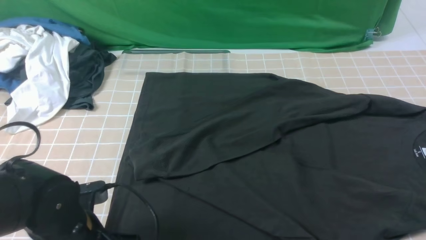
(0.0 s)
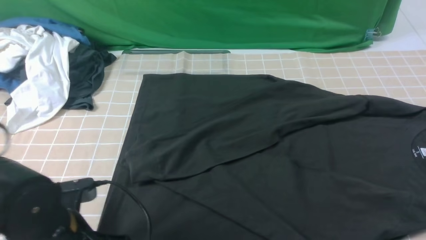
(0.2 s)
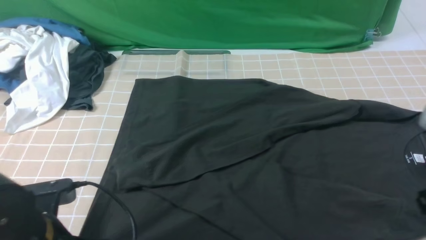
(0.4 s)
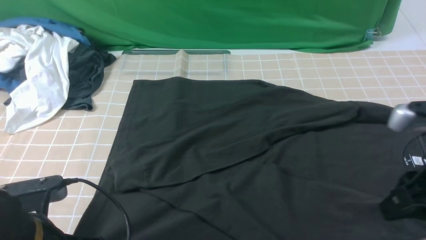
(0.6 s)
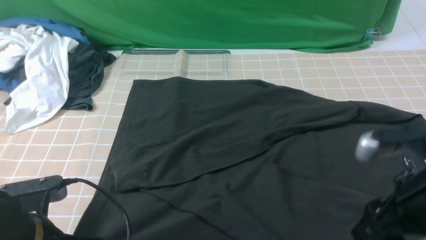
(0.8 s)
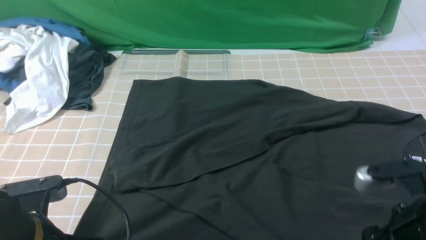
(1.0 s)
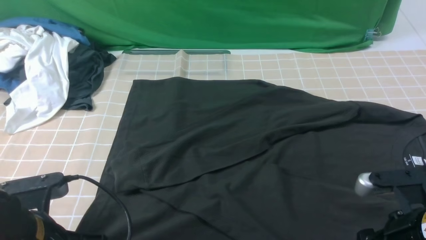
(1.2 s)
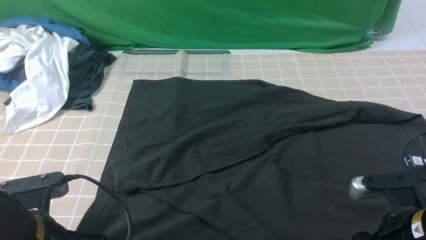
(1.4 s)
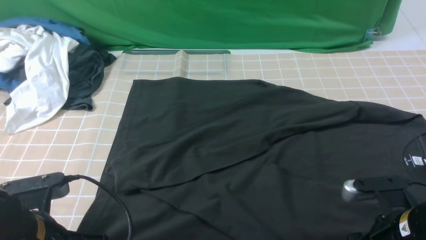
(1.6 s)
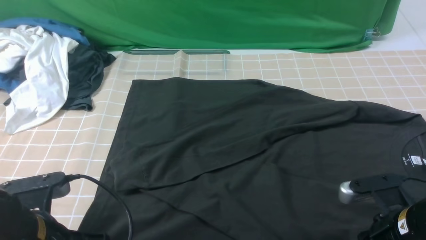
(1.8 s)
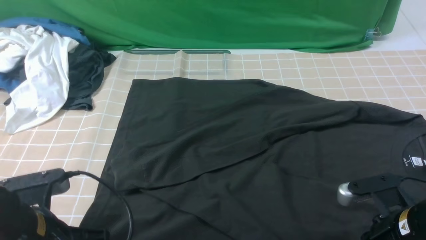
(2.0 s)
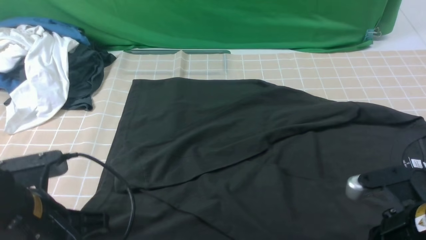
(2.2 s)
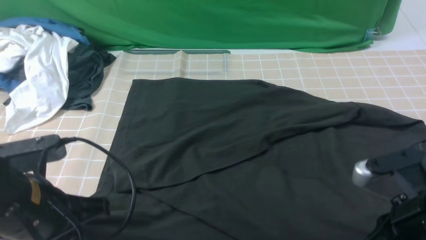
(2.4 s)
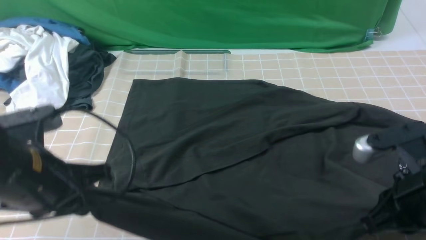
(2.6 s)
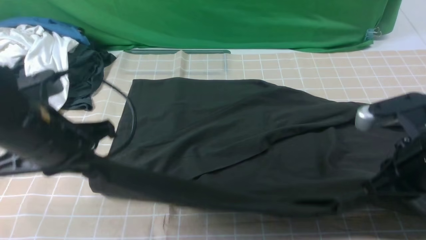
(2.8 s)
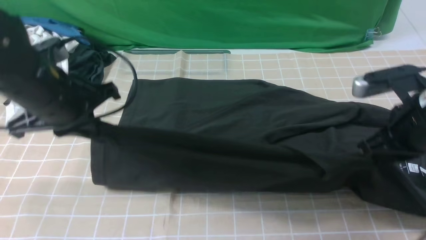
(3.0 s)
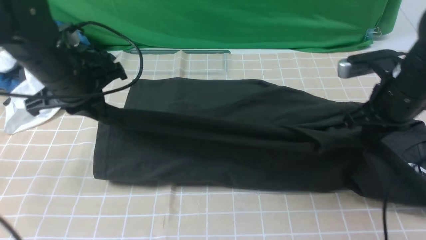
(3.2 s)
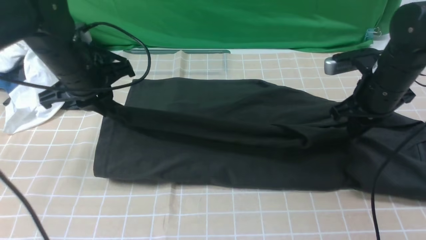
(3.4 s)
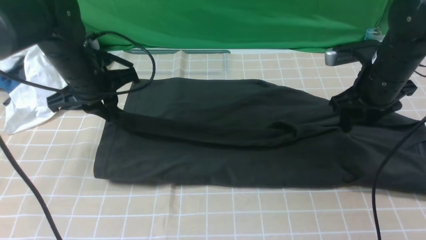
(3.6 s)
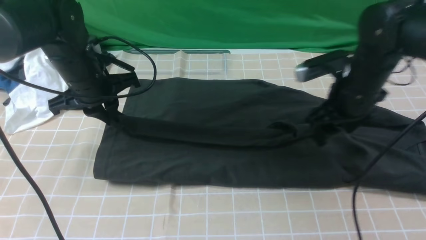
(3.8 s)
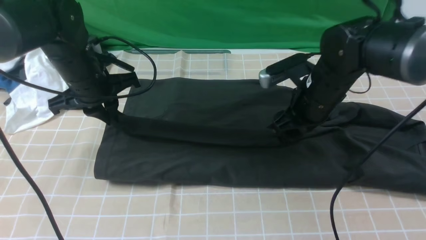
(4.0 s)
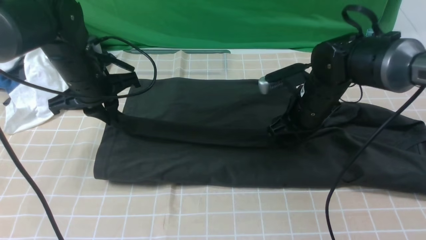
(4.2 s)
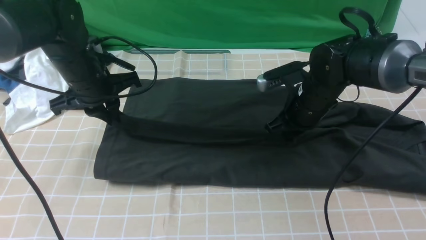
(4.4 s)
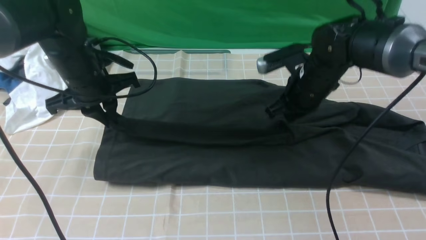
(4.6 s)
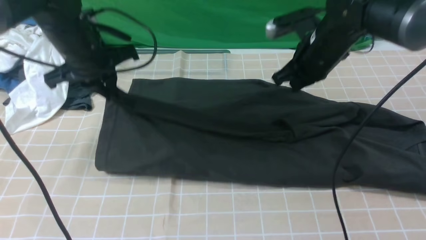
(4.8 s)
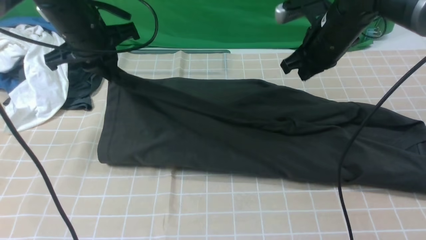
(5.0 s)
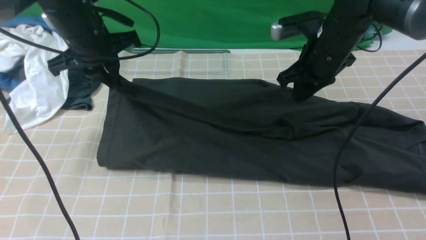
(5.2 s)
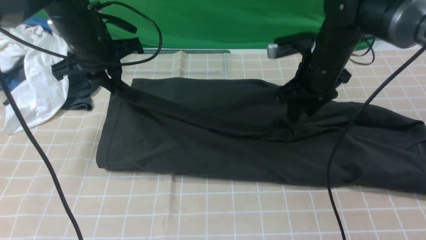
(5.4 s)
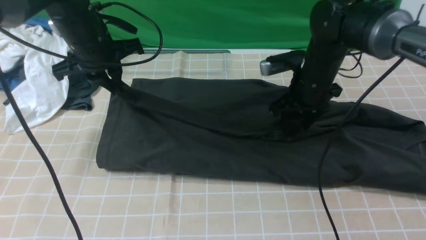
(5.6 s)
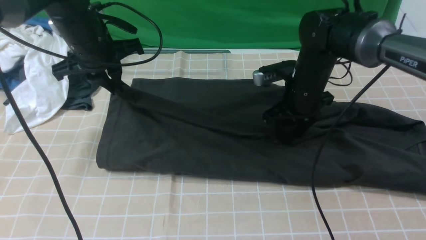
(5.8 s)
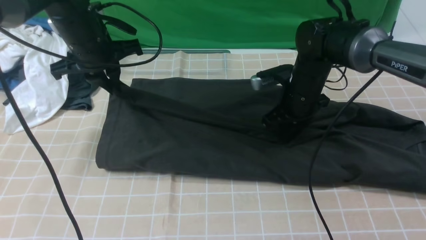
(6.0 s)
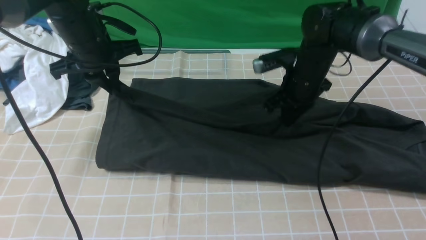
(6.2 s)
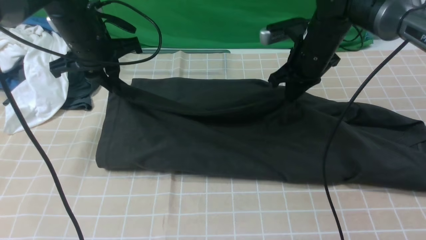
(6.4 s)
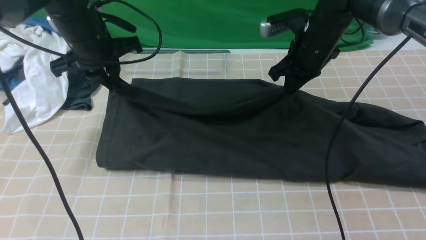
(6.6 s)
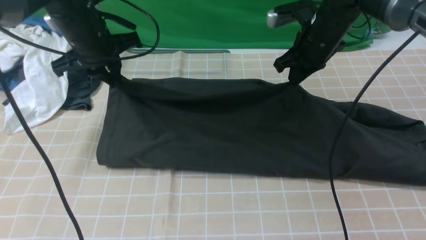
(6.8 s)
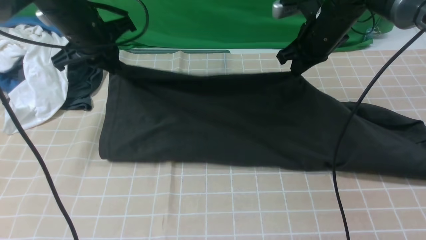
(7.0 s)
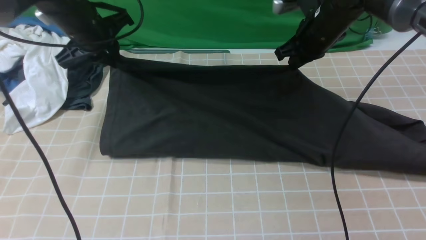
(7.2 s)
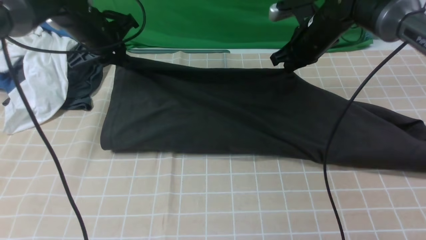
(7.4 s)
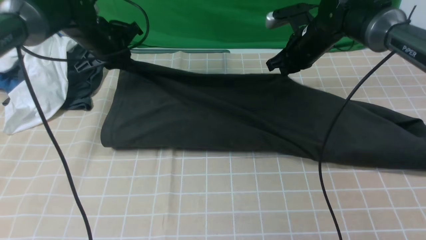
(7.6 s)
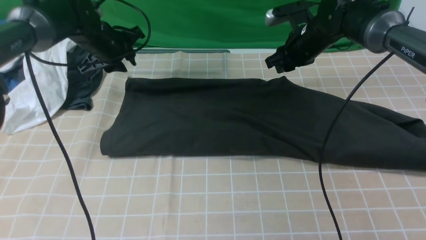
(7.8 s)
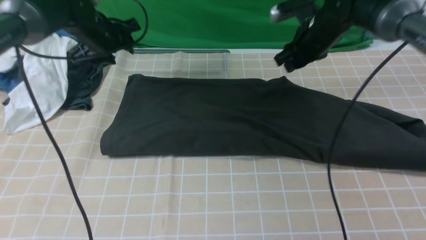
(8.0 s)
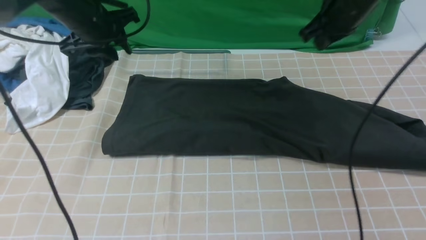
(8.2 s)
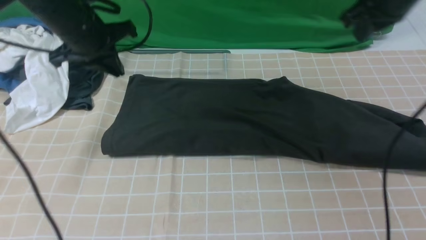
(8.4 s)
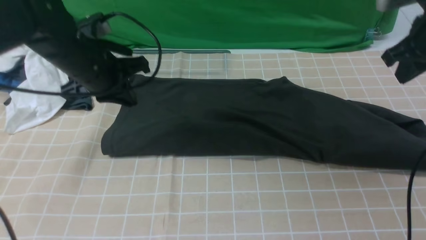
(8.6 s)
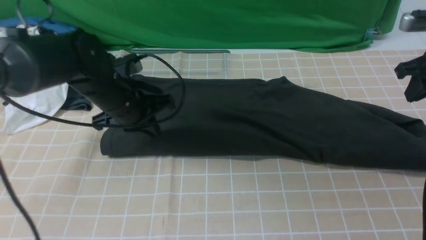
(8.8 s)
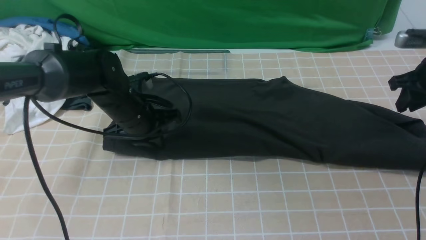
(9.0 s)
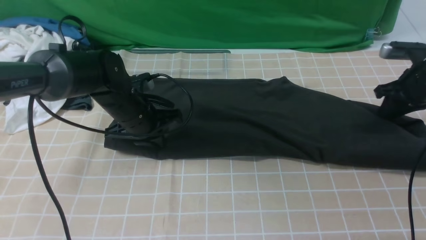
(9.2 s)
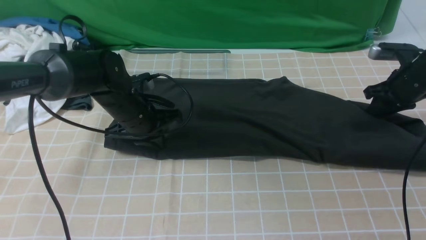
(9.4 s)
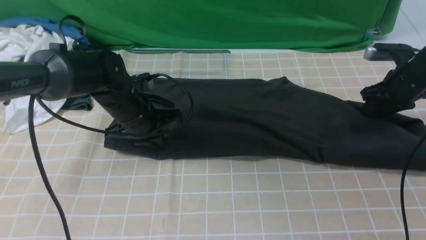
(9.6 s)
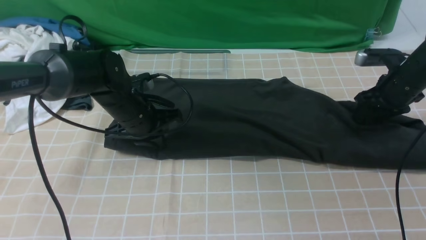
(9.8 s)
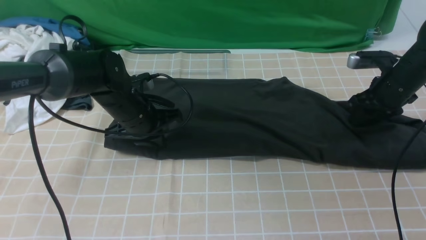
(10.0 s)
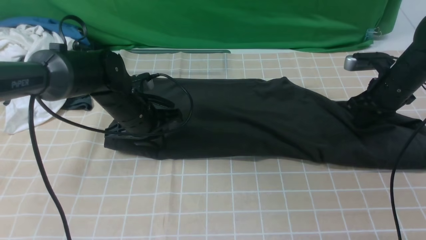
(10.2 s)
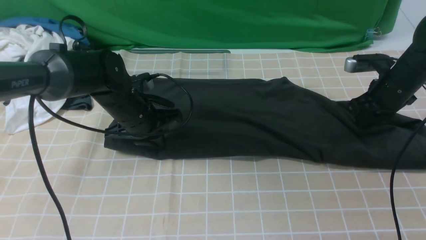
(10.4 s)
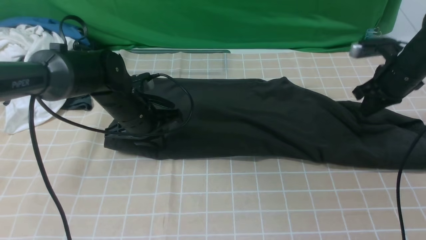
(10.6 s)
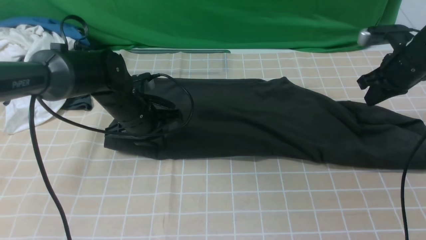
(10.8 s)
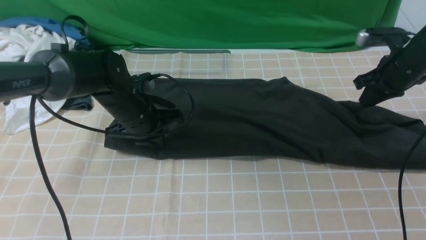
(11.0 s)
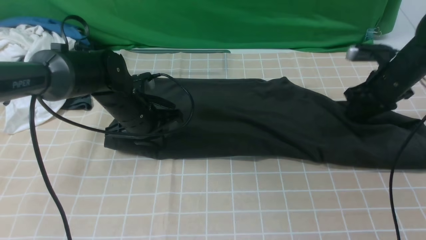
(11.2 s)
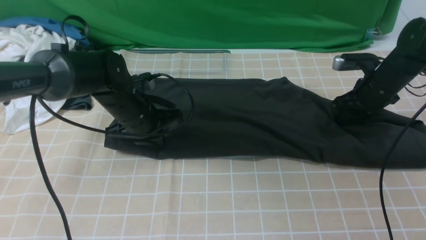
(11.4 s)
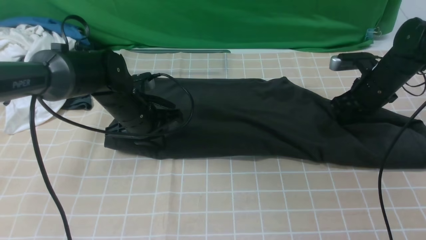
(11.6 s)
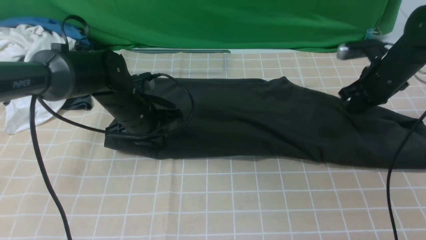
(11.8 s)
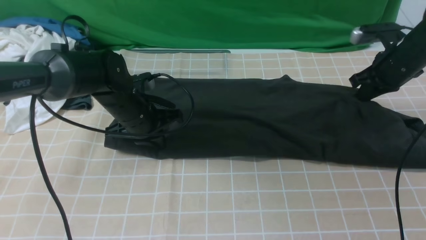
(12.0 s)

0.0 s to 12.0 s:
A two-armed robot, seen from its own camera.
Step, 2.0 to 7.8 s: use both arms to drag the lower edge of the fabric forward and fold it over the upper edge.
0.0 to 1.6 s: The left gripper changes place by some 5 cm. Meanwhile the right gripper travels downward by roughly 15 cm, and opens.
1.6 to 3.0 s: The grippers both shift forward and upward by about 15 cm. The right gripper closes.
3.0 to 4.4 s: The left gripper travels forward by approximately 10 cm; the right gripper travels forward, to the left and downward by some 15 cm, and opens its fingers.
4.4 to 6.0 s: The right gripper travels upward and back again, about 5 cm each way; the left gripper shifts by about 5 cm.
6.0 to 7.6 s: Both grippers travel together forward, roughly 10 cm.
7.6 to 9.0 s: The right gripper goes approximately 20 cm to the right and backward. Meanwhile the left gripper heads backward, to the right and downward, covering roughly 15 cm, and opens, then closes again.
9.0 to 10.4 s: The right gripper shifts roughly 5 cm to the left, and closes.
10.4 to 12.0 s: The right gripper opens, then closes once more.

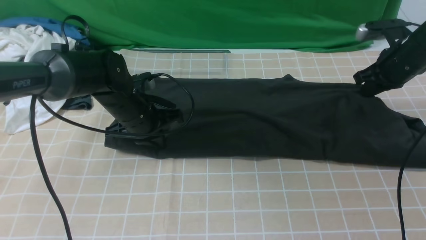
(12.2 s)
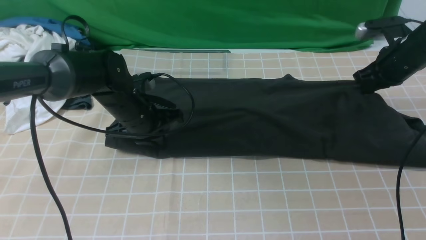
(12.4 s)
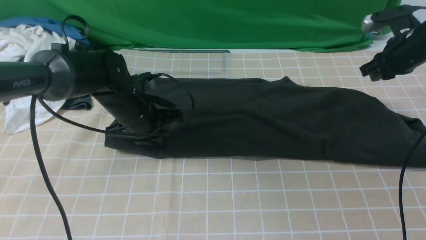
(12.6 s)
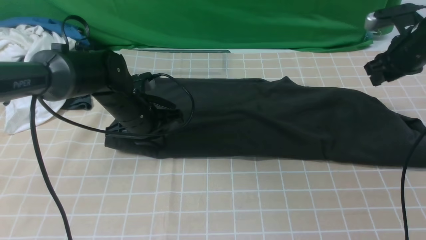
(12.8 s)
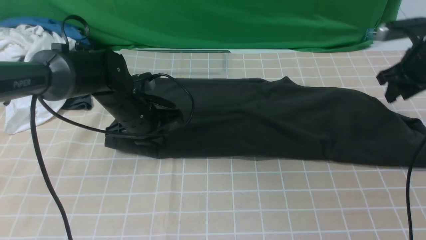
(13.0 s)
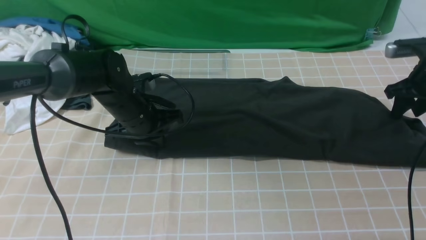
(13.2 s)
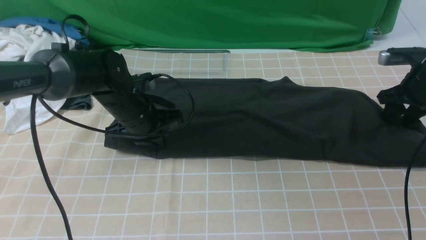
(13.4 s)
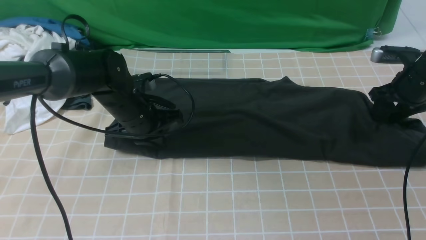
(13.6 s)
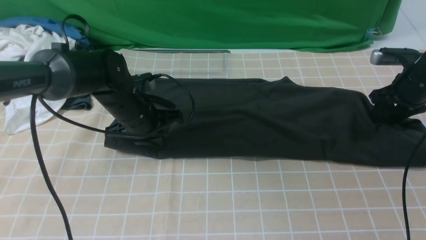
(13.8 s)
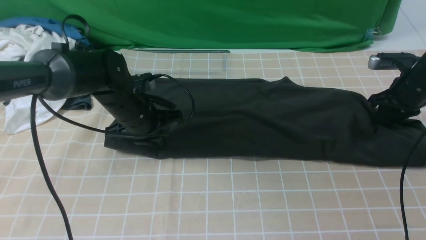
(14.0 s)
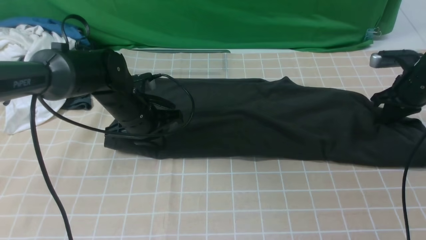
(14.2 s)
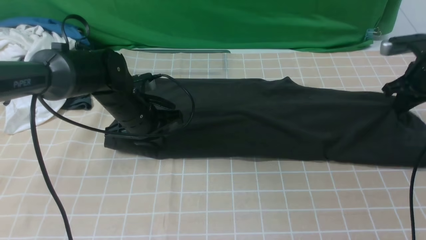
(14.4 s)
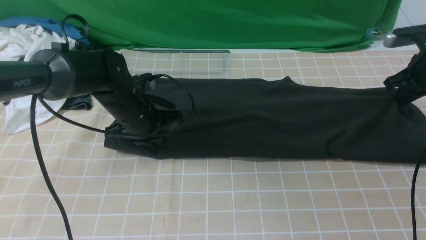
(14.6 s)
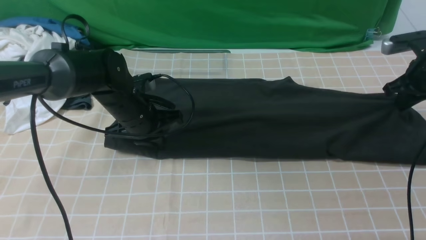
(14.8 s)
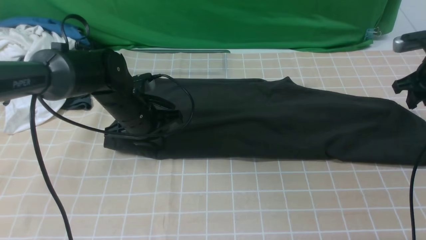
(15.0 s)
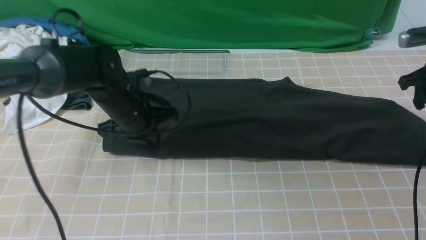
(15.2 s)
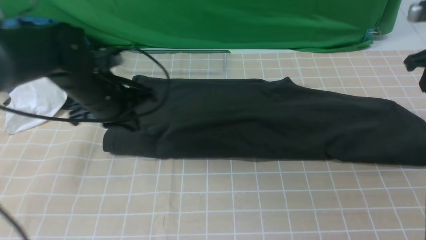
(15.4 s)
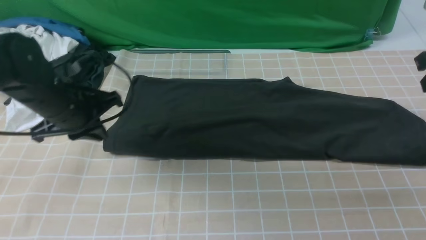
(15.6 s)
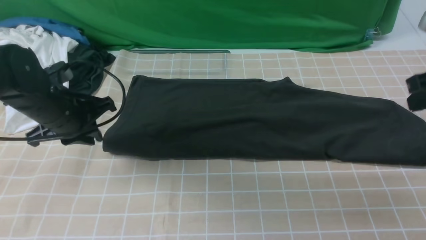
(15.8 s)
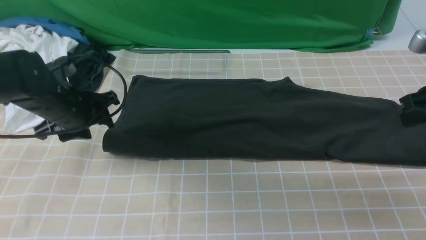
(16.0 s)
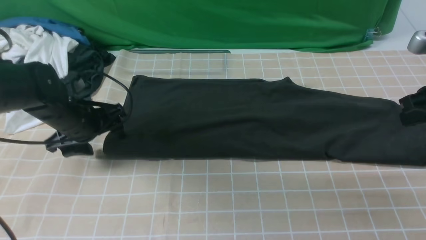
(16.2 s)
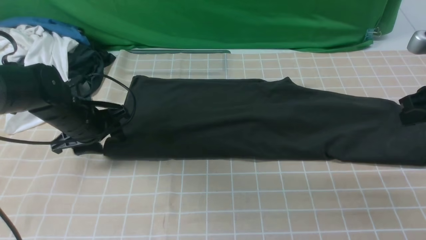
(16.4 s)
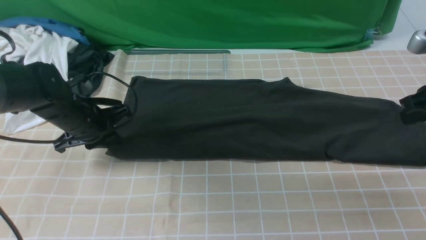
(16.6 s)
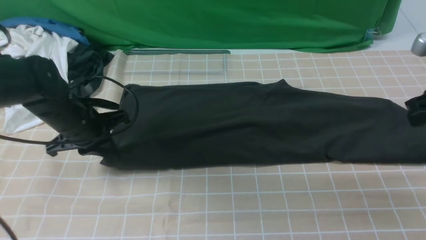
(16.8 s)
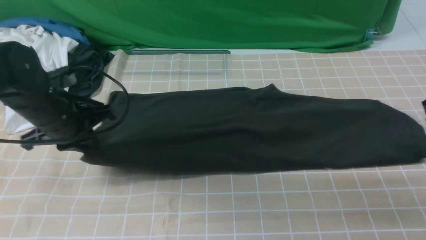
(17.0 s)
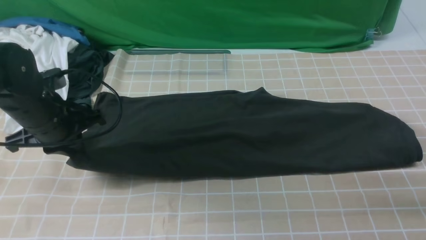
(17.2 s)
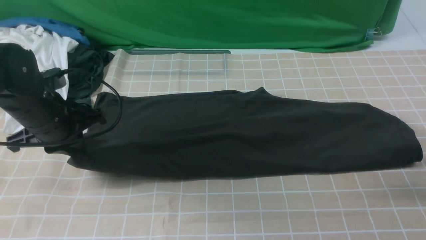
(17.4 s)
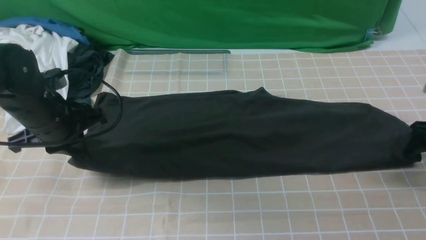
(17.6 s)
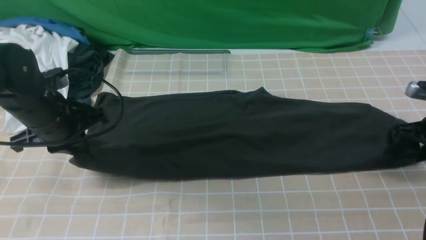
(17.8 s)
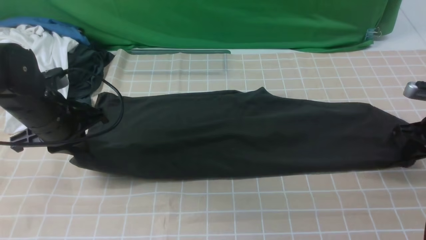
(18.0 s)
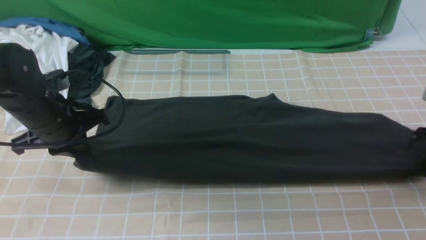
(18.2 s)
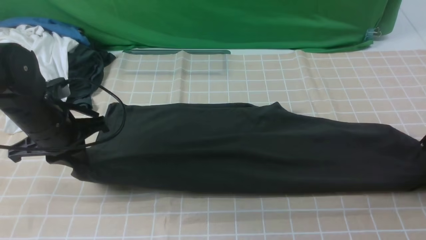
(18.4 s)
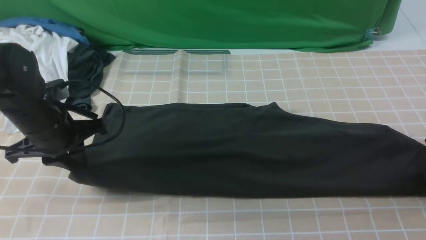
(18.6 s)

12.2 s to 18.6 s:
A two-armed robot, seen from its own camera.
12.2 to 13.8 s: The right gripper ends up approximately 5 cm from where it was, and opens up.
13.8 to 15.4 s: The left gripper moves upward, some 5 cm. Meanwhile the right gripper moves upward and backward, about 15 cm, and closes.
15.4 to 17.0 s: The right gripper goes roughly 10 cm backward. The left gripper moves roughly 5 cm, and opens, then closes again.
17.0 to 18.6 s: The right gripper moves downward, about 10 cm, and opens its fingers.
